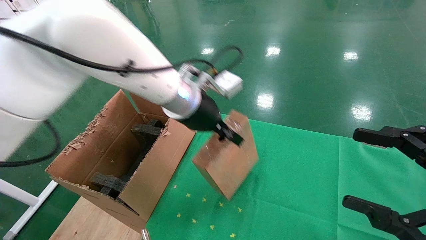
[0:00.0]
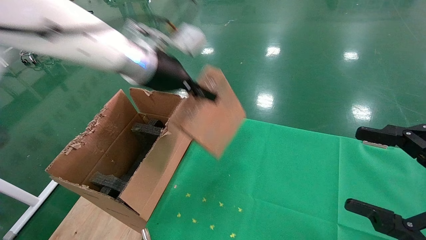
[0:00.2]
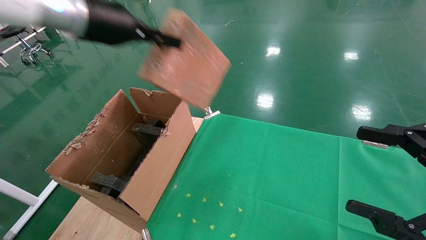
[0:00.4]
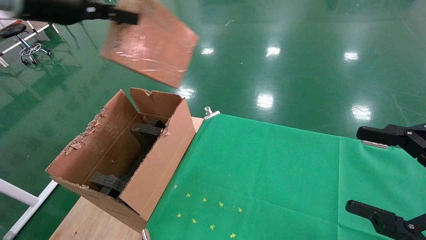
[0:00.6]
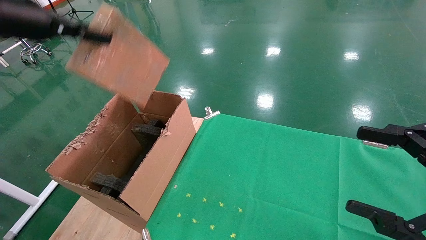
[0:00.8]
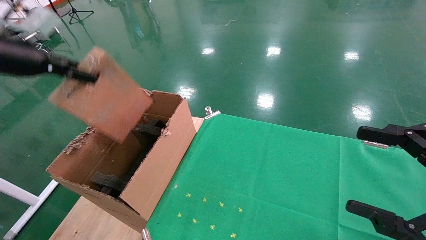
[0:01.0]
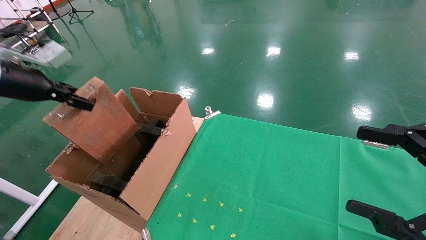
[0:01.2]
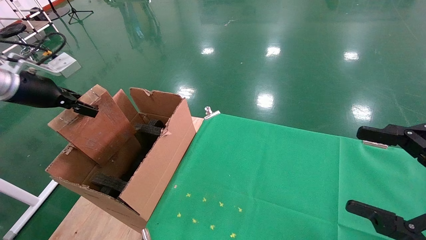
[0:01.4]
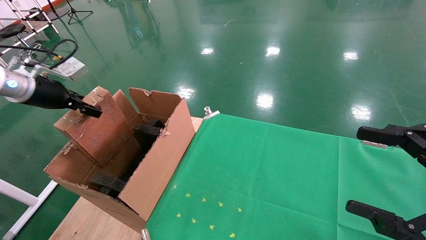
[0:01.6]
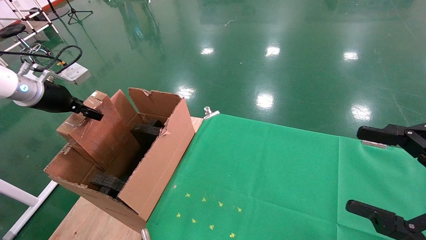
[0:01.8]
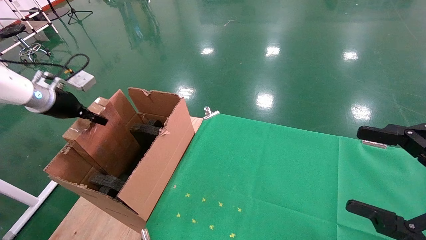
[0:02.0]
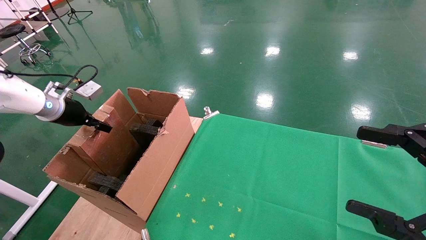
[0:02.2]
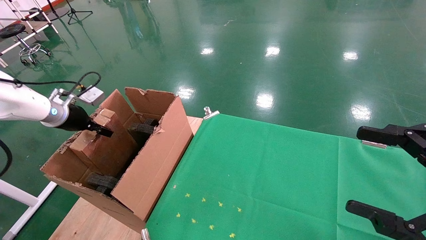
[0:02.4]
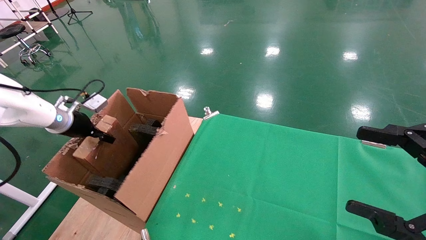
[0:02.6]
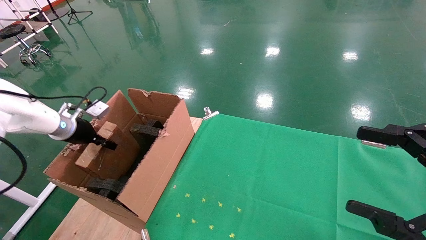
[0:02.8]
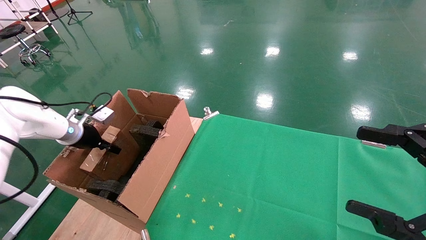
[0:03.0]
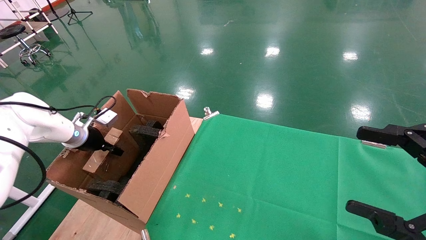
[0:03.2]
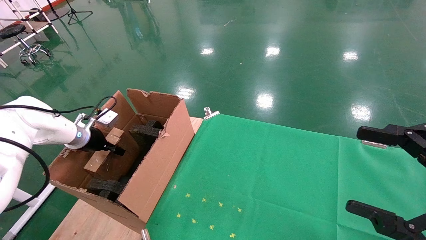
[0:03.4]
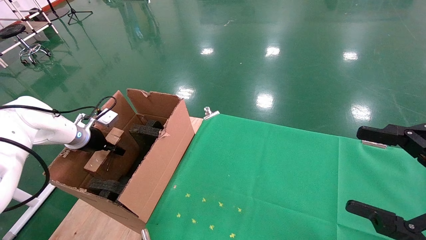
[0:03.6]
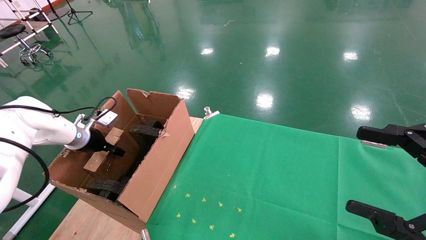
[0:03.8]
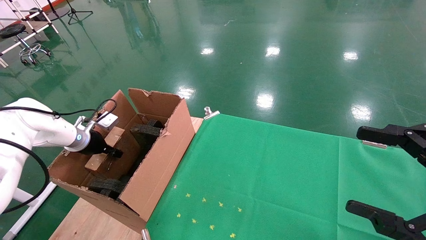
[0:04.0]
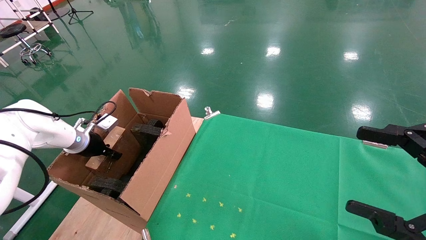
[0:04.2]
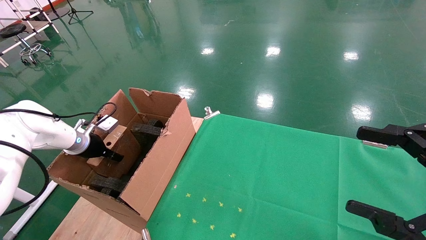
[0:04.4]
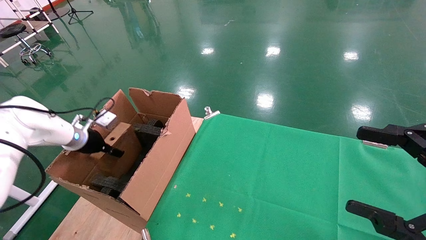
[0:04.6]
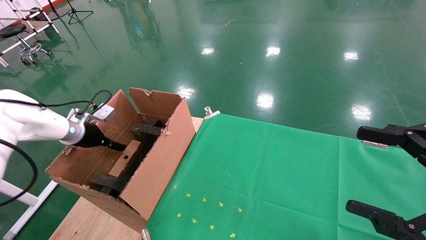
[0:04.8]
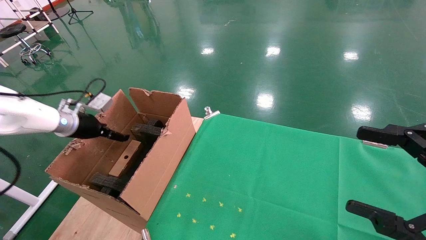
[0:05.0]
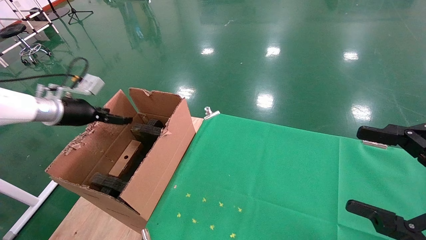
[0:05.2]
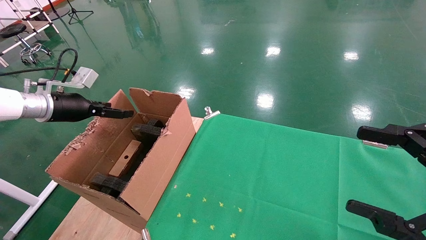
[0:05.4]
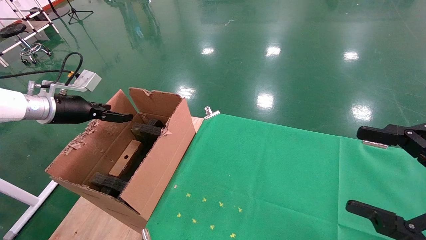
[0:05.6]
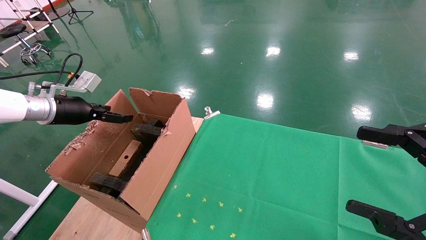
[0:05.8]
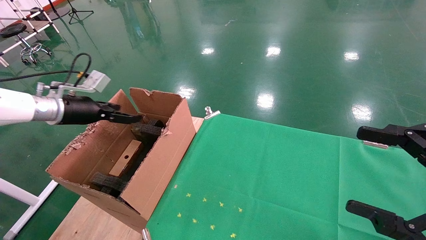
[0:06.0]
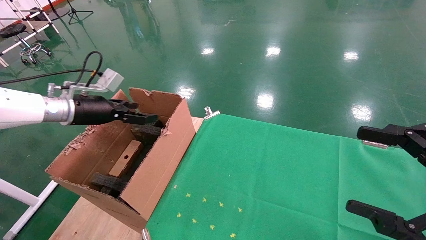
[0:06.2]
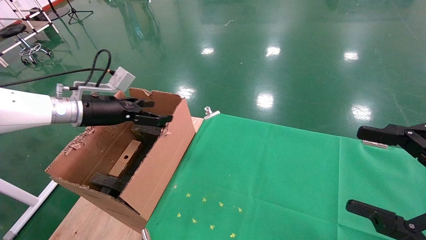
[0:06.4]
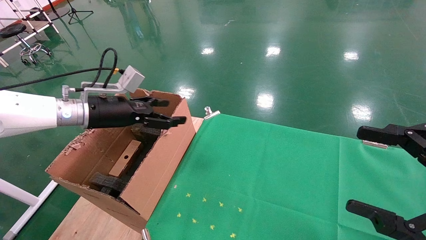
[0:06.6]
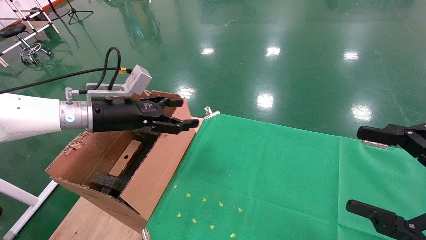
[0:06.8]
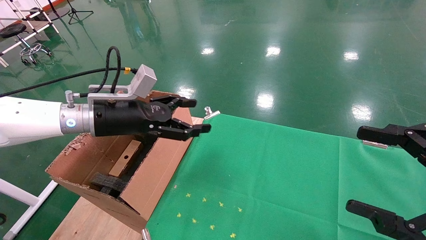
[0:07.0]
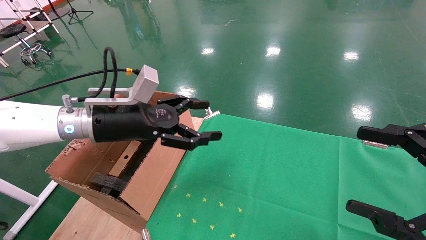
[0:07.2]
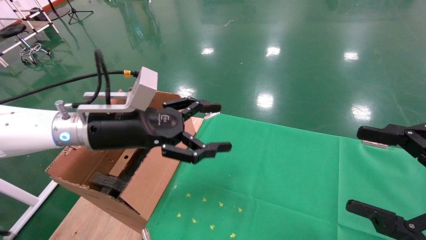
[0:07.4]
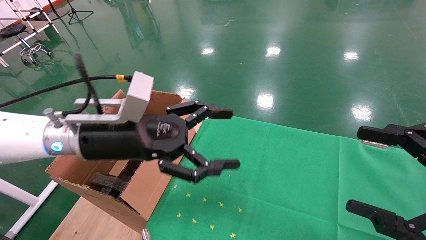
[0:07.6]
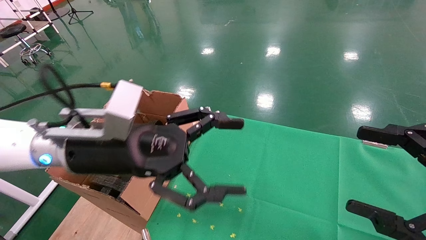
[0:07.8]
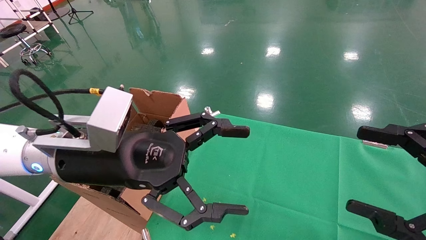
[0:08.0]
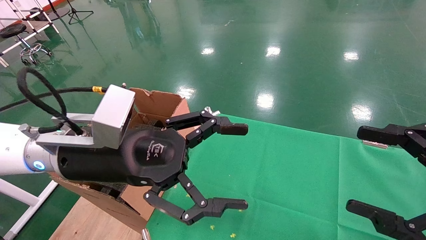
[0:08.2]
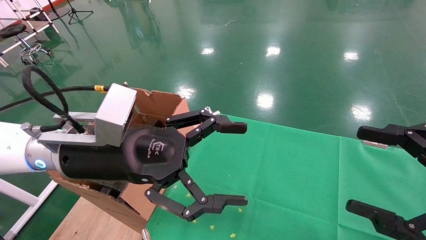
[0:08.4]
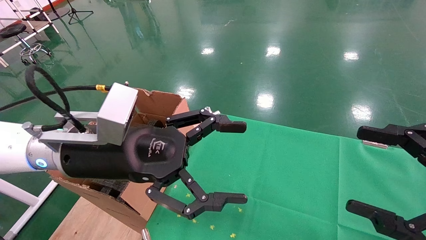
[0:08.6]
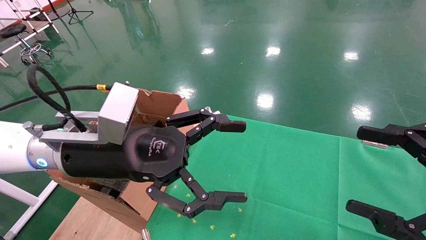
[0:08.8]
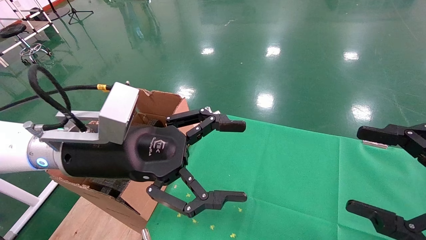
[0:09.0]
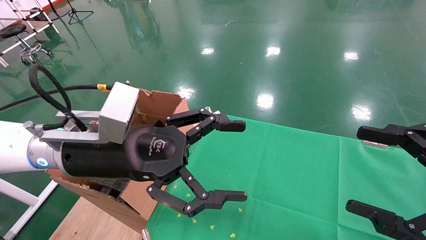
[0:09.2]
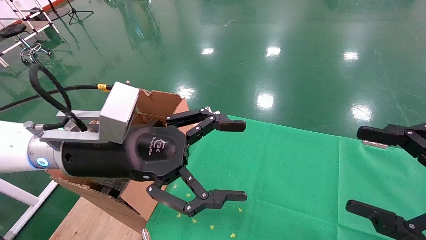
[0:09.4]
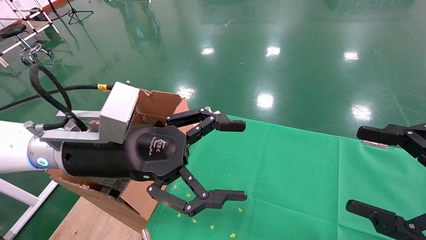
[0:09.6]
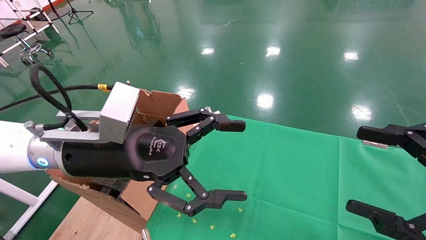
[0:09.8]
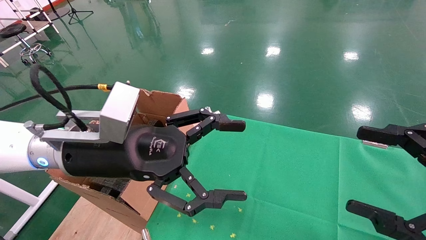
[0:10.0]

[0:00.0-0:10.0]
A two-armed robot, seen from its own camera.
Task of the whole recording: using a robotic arm to pick up a cardboard box and palace it the carton.
Step, 0:00.2 to 0:05.2: Place the mouse and the power cord paper box into the container.
0:00.0 to 0:01.4: The left gripper is displaced to the left by approximately 35 cm.
0:01.4 to 0:02.8: The left gripper is displaced downward and forward by roughly 15 cm.
0:02.8 to 0:04.2: There are only small adjustments of the grippers.
0:04.2 to 0:05.8: The left gripper goes approximately 10 cm upward, and opens its fingers.
0:05.8 to 0:07.2: The left gripper heads to the right, covering roughly 20 cm.
0:07.2 to 0:08.6: The left gripper is displaced backward and to the right by approximately 10 cm.
0:08.6 to 0:10.0: The two grippers keep their place.
